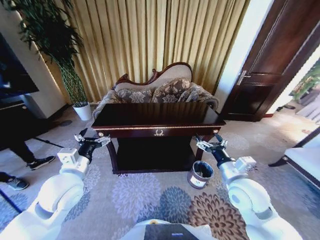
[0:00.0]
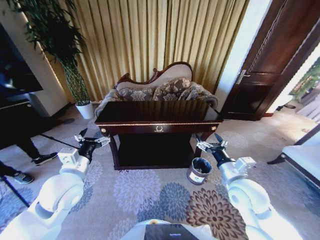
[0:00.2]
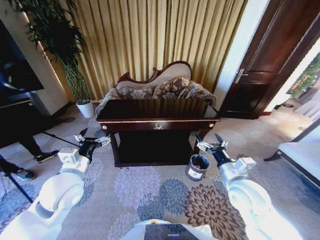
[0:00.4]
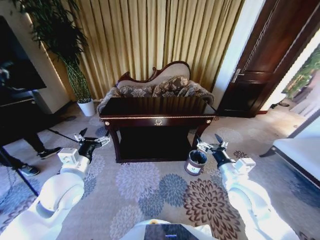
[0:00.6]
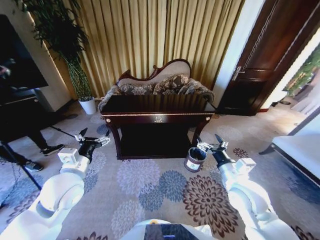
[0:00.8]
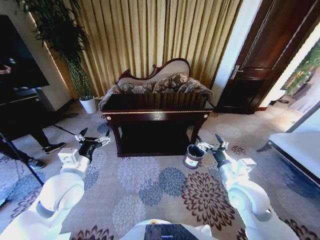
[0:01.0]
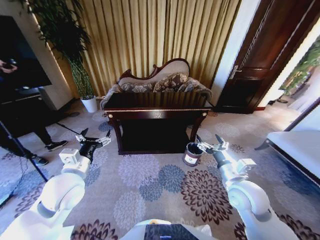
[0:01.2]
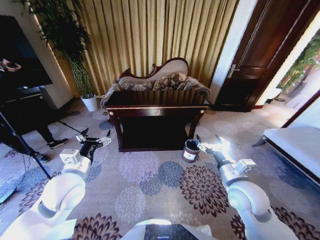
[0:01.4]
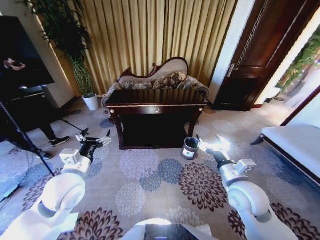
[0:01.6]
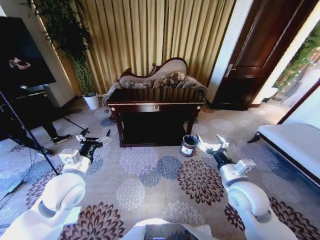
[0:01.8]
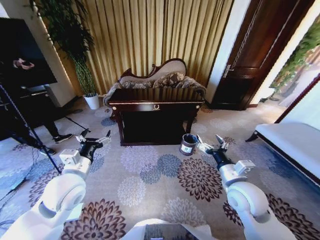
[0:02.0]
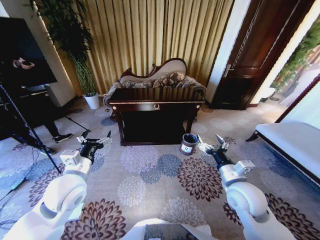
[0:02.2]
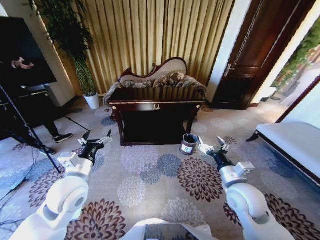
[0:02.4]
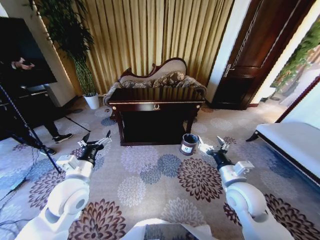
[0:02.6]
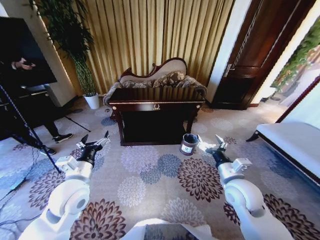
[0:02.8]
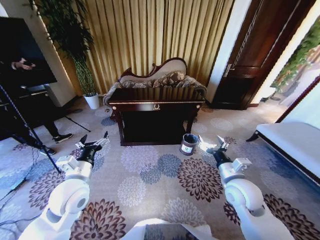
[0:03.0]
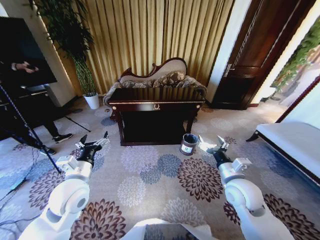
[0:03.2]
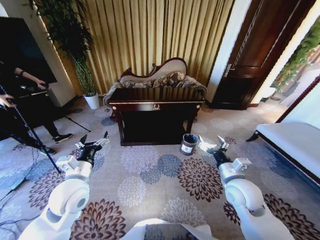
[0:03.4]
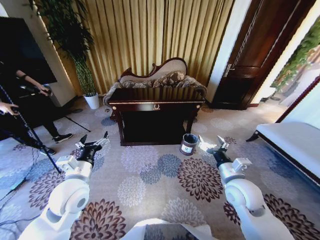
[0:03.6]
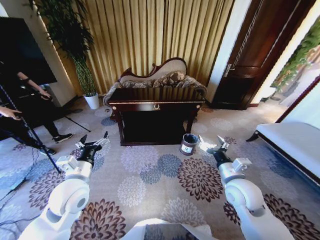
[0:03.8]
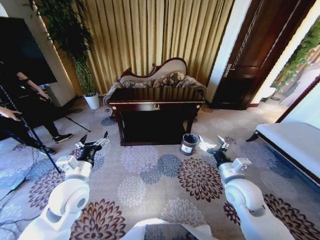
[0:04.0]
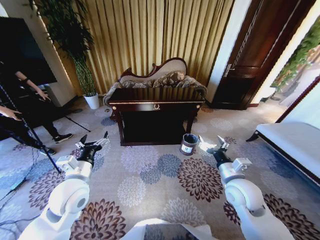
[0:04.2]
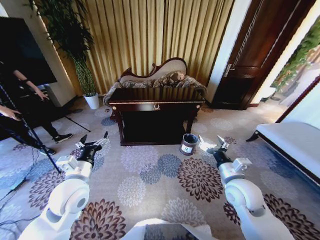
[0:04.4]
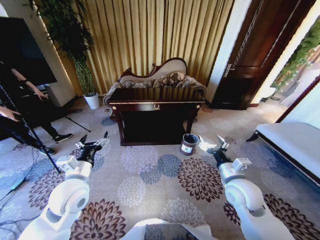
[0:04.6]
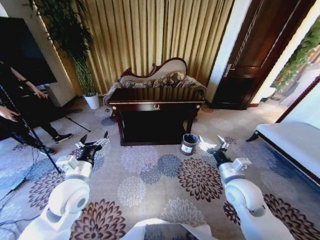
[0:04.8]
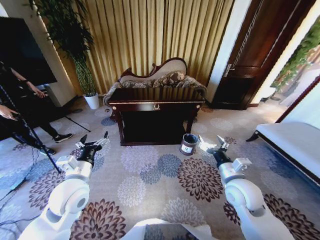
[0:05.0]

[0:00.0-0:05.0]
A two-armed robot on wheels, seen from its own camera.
Task of the whole recording: Move to the front of the table and place the trash on the table into the trash bin.
0:03.4 to 0:05.0: The two grippers keep their place.

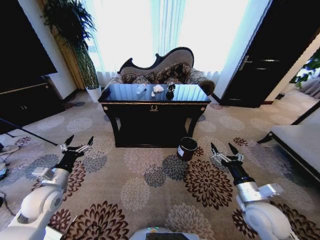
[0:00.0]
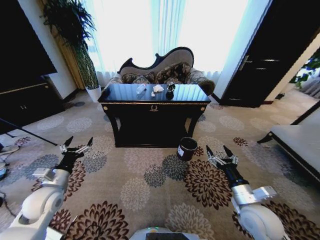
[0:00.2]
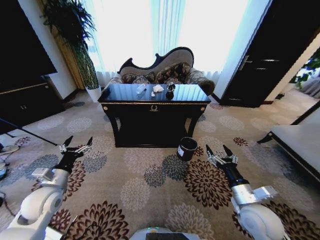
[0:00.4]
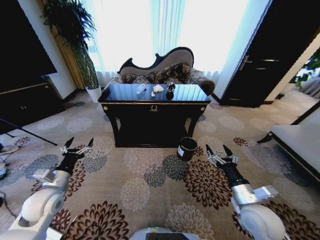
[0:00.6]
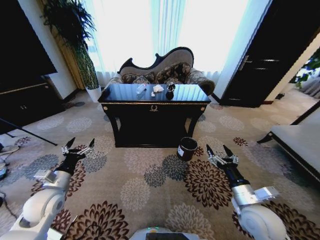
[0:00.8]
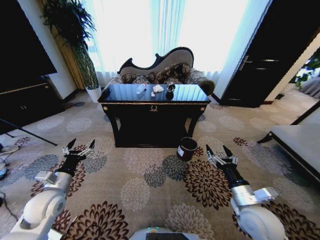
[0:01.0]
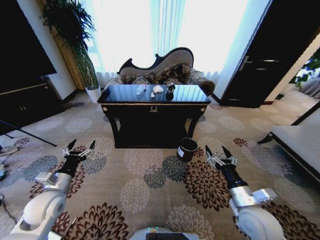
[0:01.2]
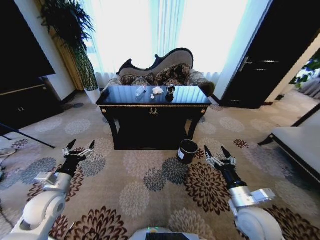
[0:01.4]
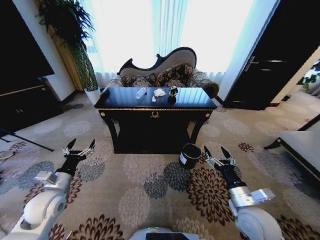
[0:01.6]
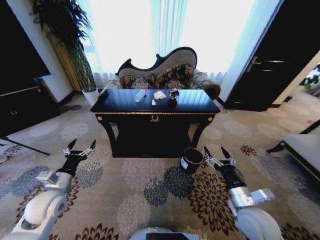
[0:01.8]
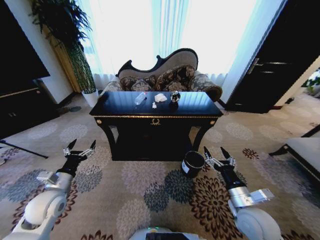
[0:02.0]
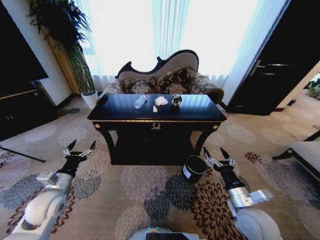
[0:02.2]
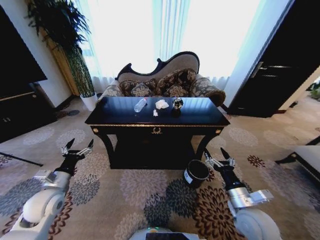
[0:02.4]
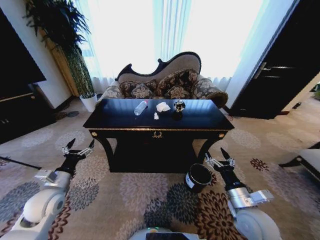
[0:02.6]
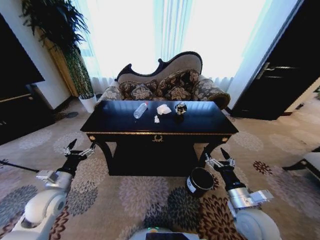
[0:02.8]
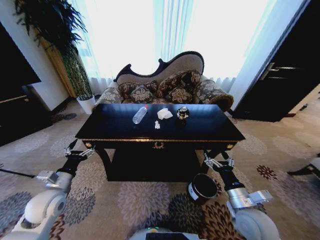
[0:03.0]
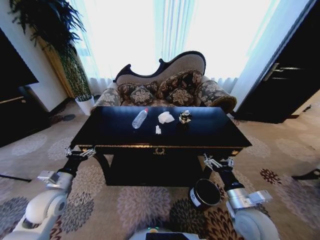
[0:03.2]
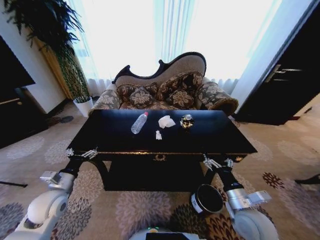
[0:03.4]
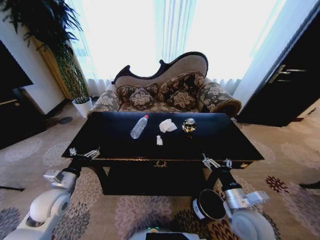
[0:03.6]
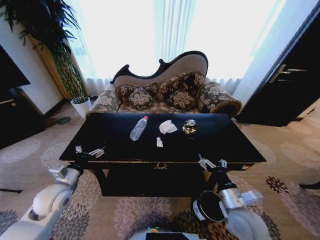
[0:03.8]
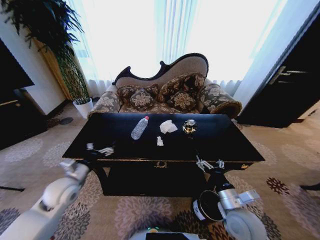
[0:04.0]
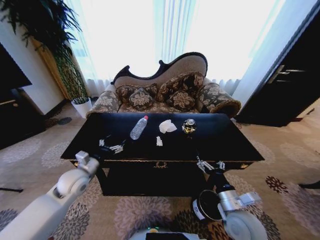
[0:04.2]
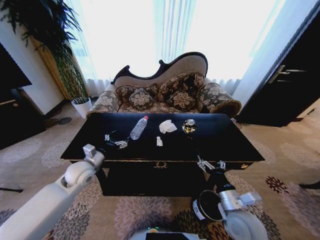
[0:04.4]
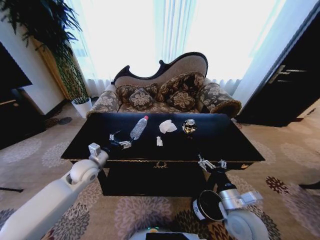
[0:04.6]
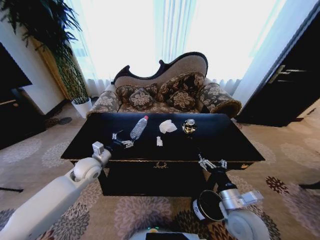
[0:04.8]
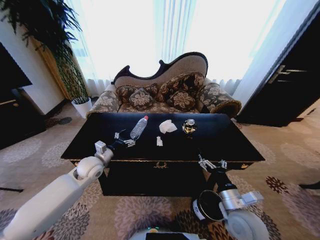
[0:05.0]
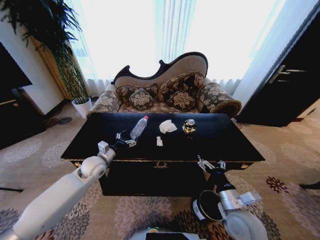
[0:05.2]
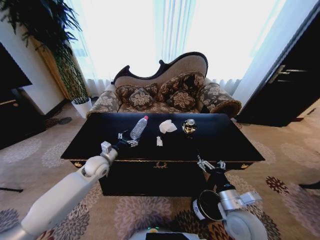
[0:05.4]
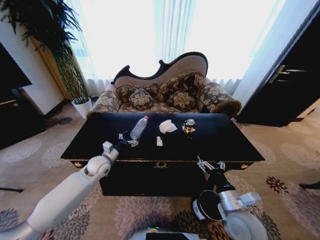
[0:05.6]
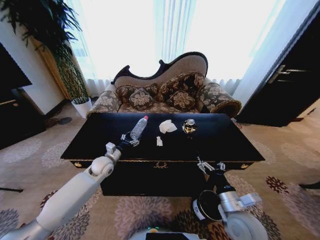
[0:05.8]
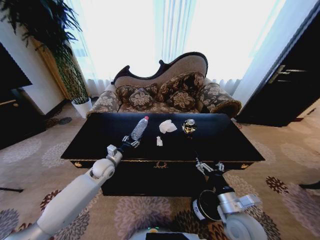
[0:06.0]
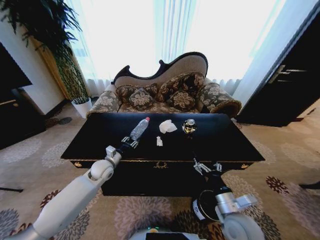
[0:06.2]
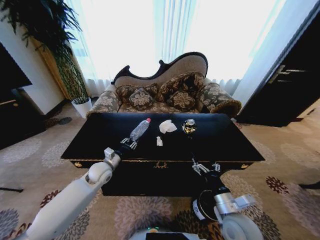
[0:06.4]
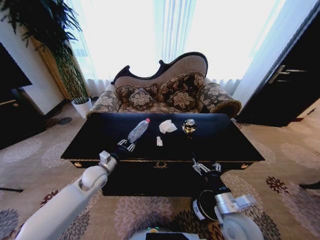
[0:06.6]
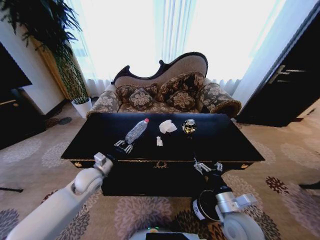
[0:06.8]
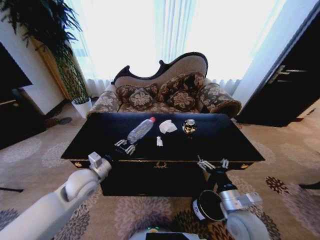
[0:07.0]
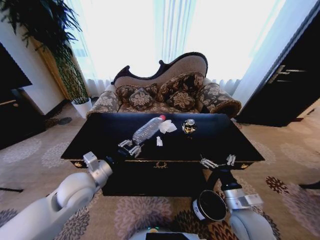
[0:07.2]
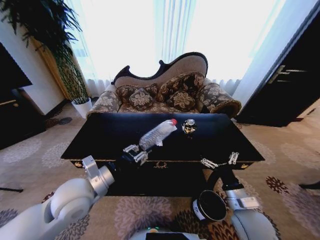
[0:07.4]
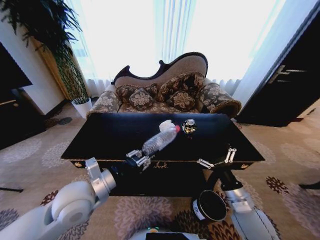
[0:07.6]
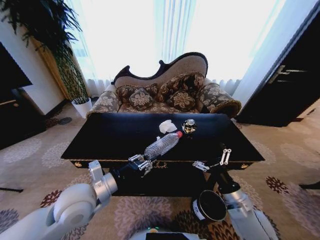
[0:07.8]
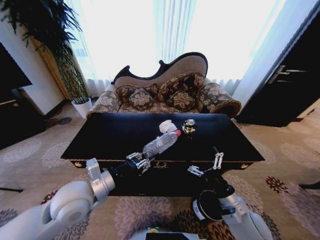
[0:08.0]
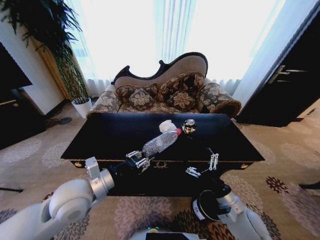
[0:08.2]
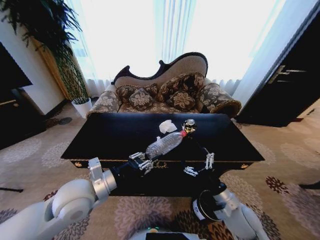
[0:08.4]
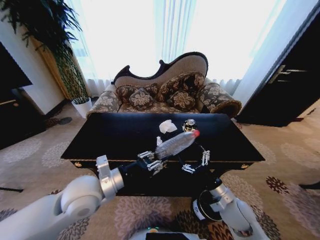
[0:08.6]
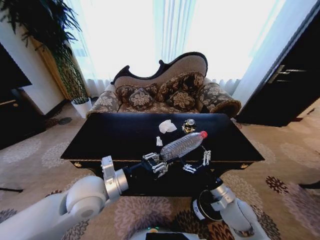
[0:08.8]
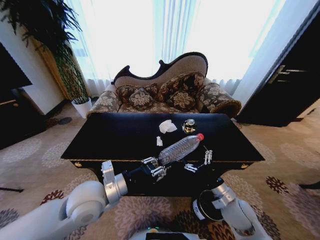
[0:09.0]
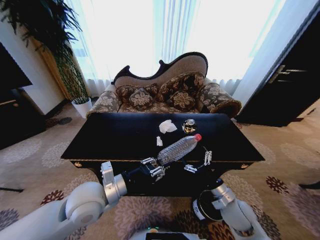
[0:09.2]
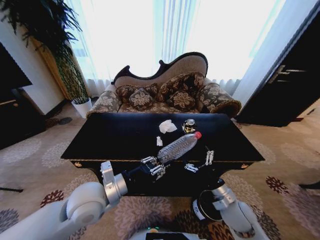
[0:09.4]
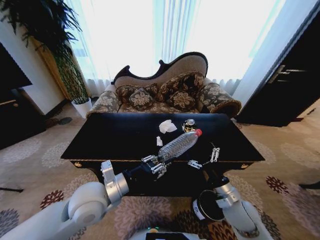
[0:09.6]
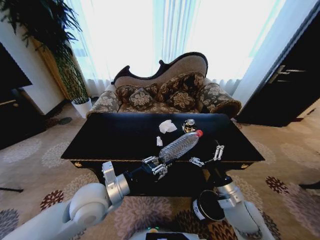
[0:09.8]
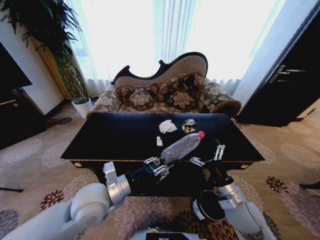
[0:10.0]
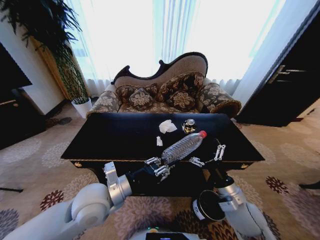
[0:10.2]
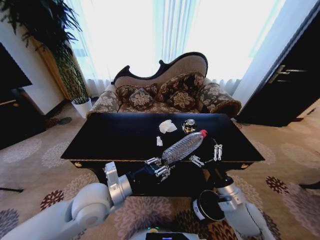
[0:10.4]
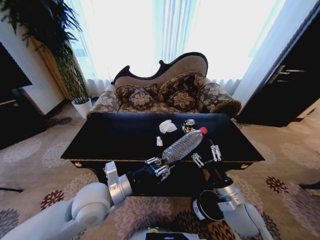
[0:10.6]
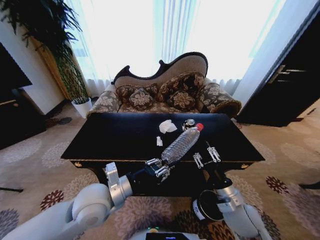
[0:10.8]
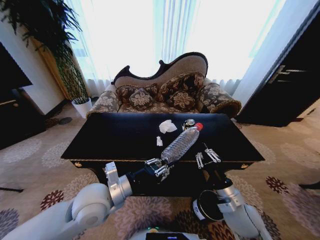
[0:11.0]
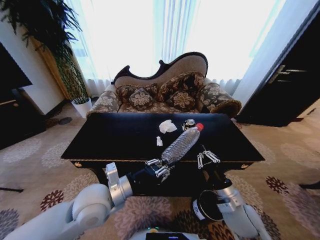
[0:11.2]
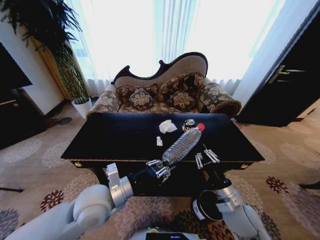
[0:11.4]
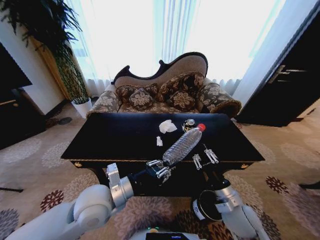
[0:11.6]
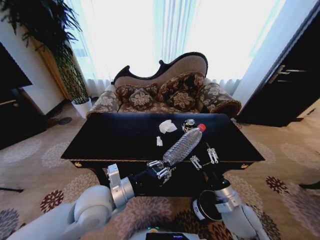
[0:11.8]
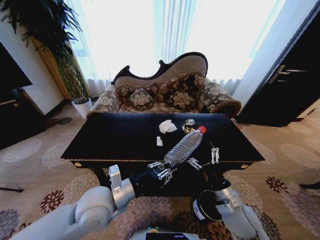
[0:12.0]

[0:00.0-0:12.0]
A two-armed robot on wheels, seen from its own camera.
Task of the whole recording: Move to the front of the table and place the trash on the table into the trash bin.
0:03.0 to 0:04.4: The left gripper travels forward and to the right by approximately 15 cm.
0:04.4 to 0:06.0: The left gripper goes approximately 10 cm downward, forward and to the right, and closes.
0:06.0 to 0:07.6: The left gripper shifts about 25 cm backward and upward, and closes its fingers.
0:07.6 to 0:09.0: The right gripper shifts by about 5 cm.
0:09.0 to 0:10.4: The grippers stay close to where they were, moving slightly.
0:10.4 to 0:12.0: The right gripper closes and opens again.

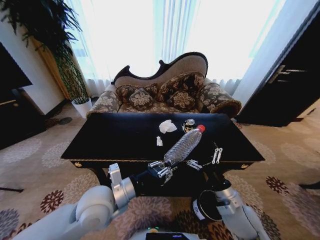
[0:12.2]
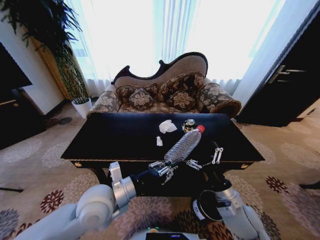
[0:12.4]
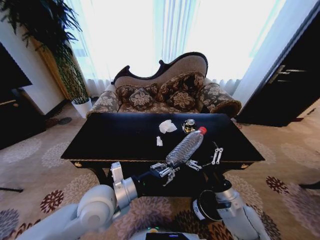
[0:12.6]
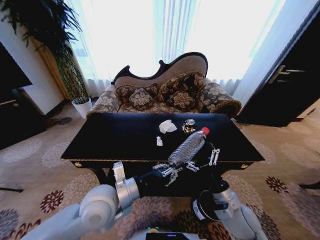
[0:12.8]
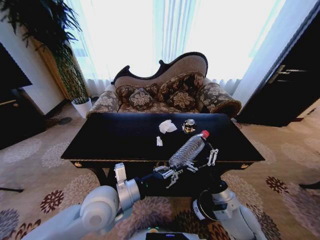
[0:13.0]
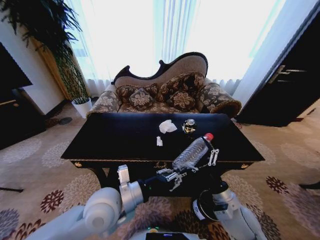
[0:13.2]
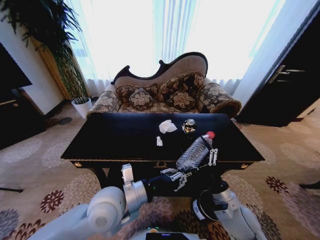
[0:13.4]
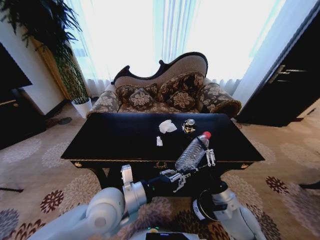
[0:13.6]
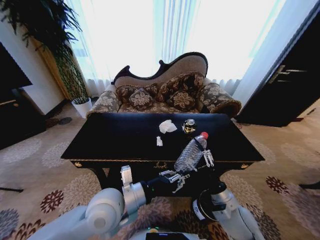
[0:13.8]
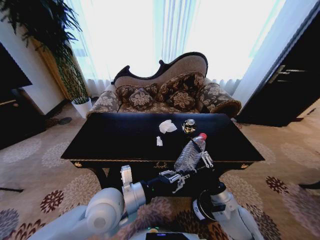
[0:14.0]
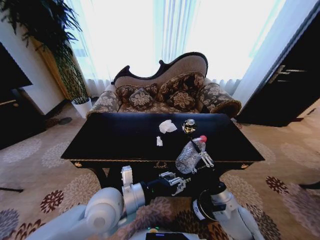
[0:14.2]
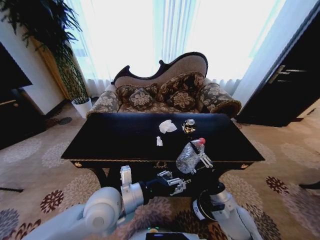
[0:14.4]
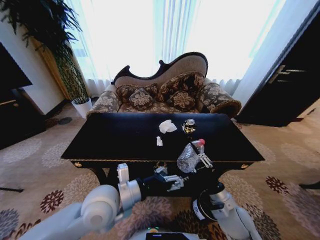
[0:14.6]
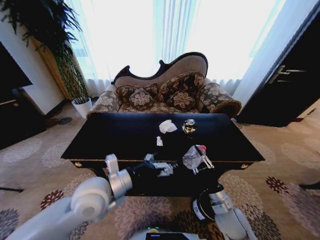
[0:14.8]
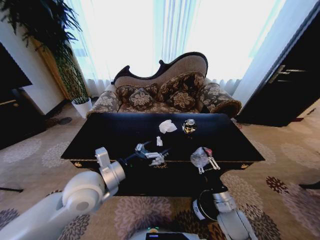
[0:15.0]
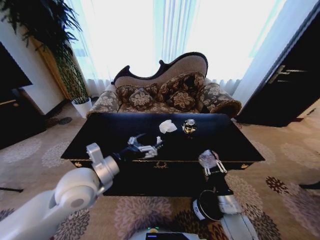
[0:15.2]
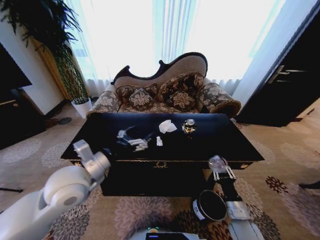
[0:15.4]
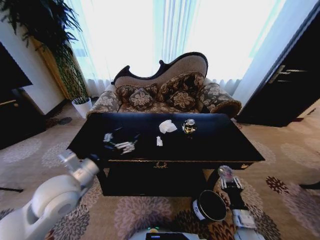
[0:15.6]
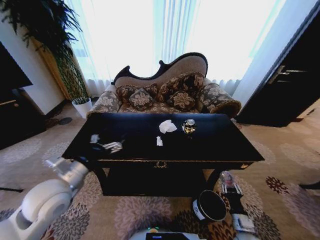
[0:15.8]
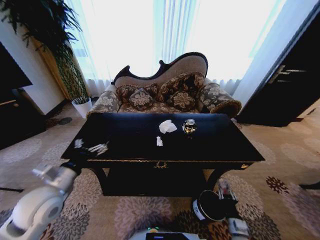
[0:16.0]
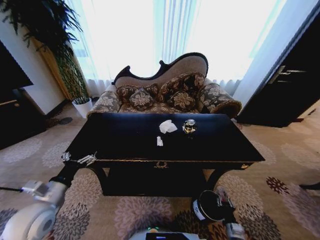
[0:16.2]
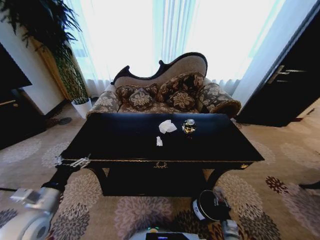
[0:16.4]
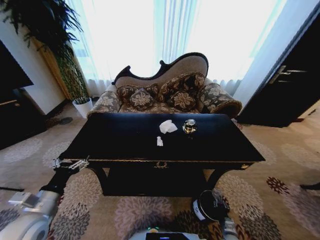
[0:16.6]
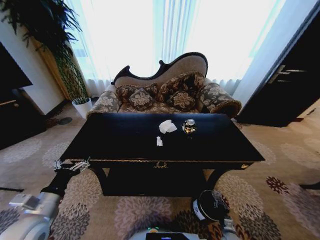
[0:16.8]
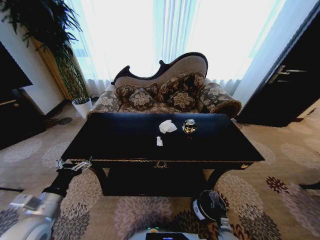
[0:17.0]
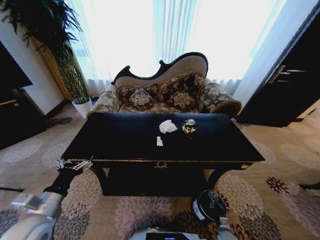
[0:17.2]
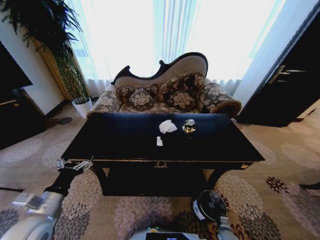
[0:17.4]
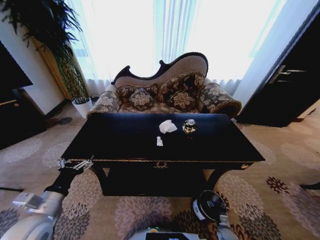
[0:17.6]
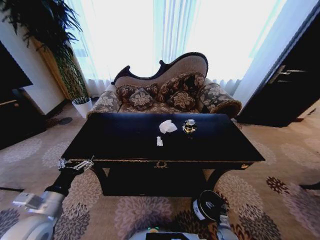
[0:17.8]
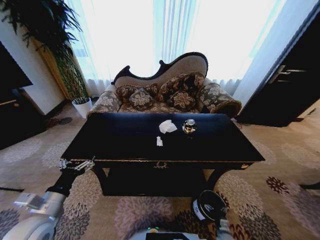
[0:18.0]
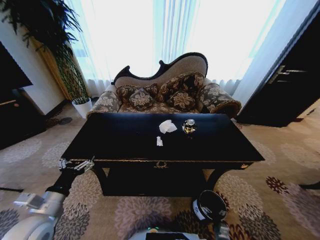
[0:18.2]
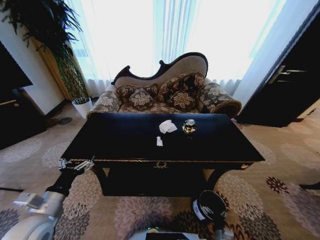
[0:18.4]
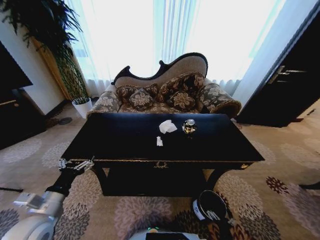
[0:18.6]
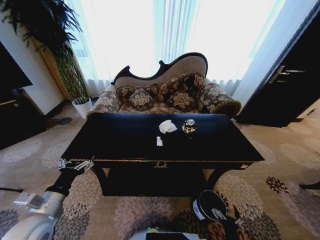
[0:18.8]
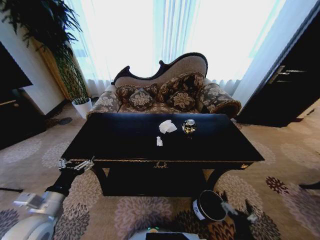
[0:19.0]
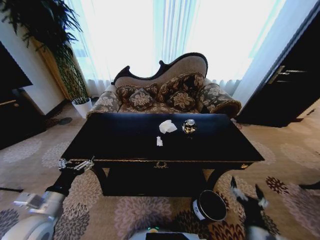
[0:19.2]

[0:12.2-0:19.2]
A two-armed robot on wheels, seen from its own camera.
Task of the whole recording: Move to the front of the table and place the trash on the table into the trash bin.
0:12.2 to 0:13.6: The grippers make only small movements.
0:13.6 to 0:15.0: The left gripper shifts about 5 cm to the left, and opens its fingers; the right gripper moves downward, approximately 5 cm, and closes its fingers.
0:15.0 to 0:16.4: The left gripper heads to the left and downward, covering roughly 20 cm; the right gripper travels downward and to the right by roughly 25 cm.
0:16.4 to 0:17.8: The right gripper travels downward by roughly 10 cm, and opens.
0:17.8 to 0:19.2: The right gripper travels upward by some 30 cm.
